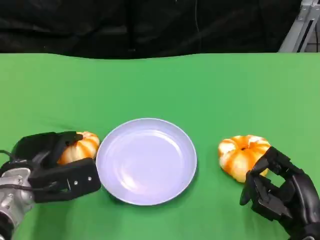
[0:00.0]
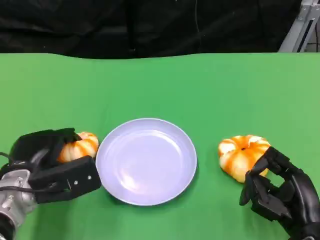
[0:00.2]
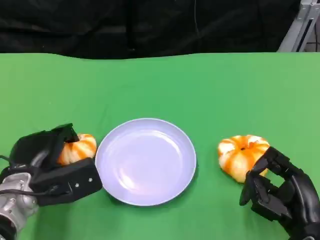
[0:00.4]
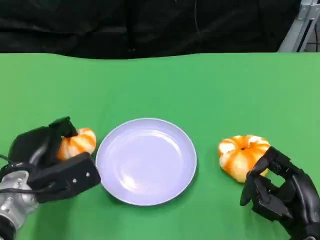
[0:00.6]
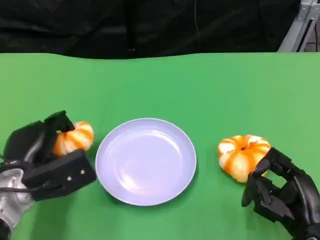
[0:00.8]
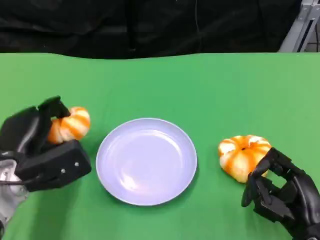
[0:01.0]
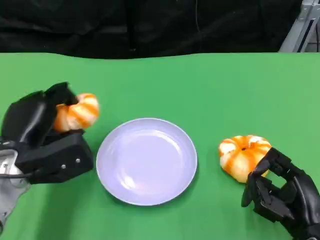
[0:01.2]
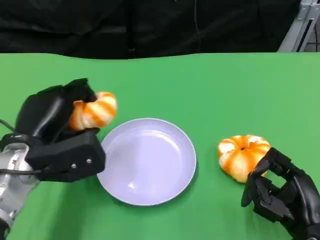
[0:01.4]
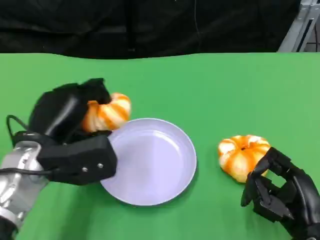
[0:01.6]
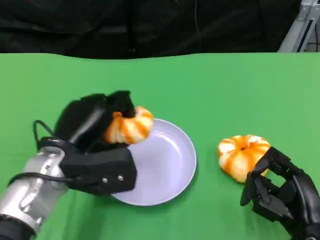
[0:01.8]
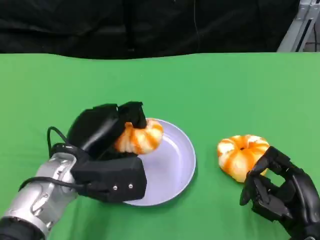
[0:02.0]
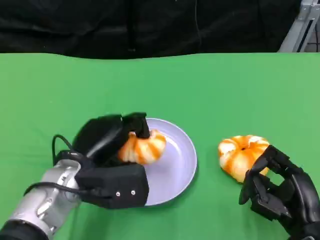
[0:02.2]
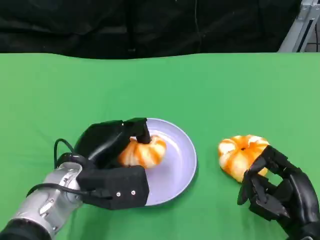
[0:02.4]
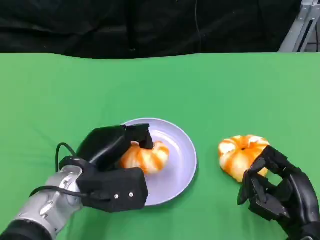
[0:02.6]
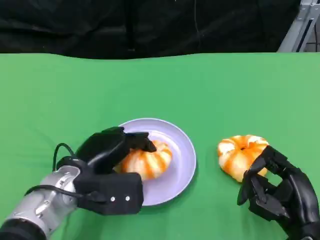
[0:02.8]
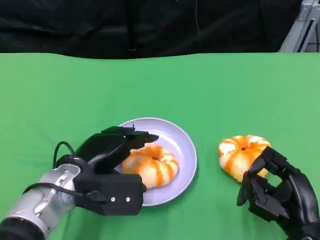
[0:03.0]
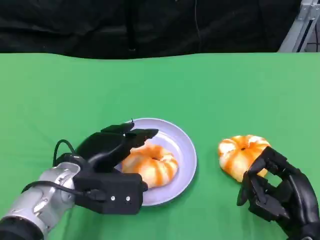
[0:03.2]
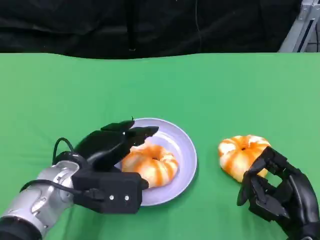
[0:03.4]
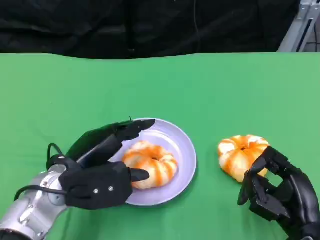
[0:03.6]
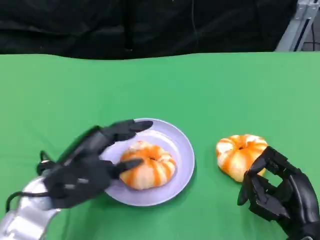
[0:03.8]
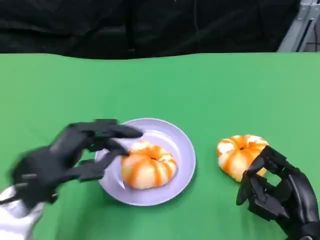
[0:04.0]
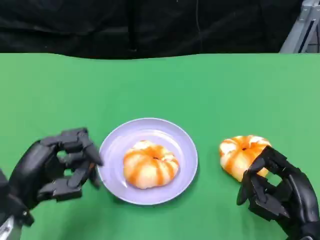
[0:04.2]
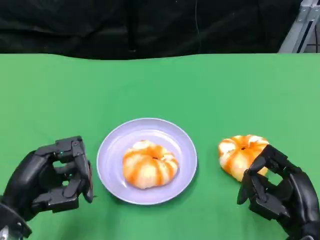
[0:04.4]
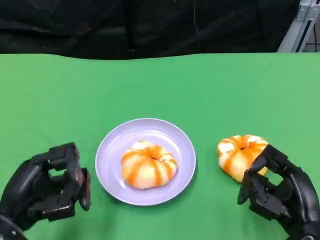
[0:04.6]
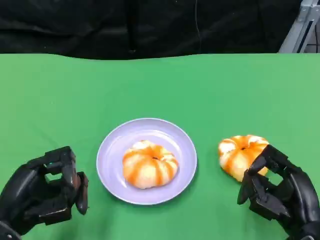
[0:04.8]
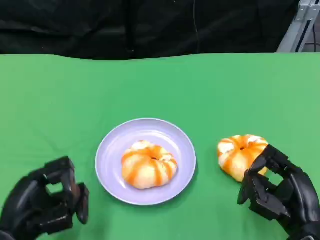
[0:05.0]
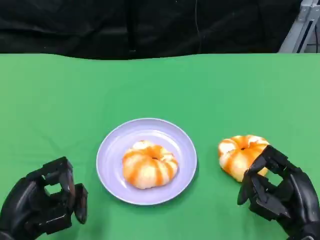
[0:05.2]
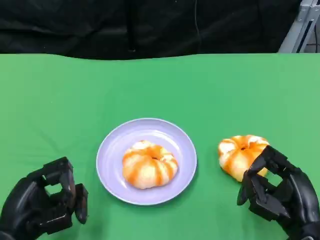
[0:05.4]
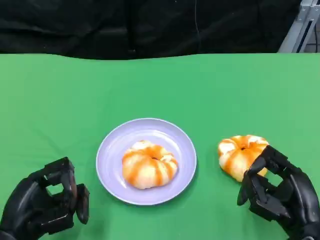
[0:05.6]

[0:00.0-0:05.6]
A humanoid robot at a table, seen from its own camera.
Task of the whole recording: Grasp the bread from the table and place it into the plate.
0:00.0 to 0:01.4: The left hand goes approximately 5 cm upward.
0:01.4 to 0:02.8: The left hand heads to the right, covering roughly 5 cm.
0:02.8 to 0:04.2: The left hand shifts about 10 cm to the left and backward.
0:04.2 to 0:05.6: The left hand moves about 5 cm.

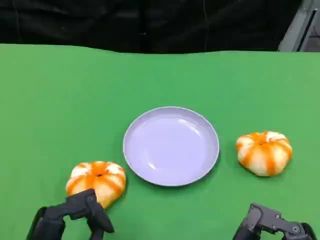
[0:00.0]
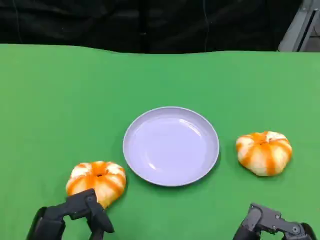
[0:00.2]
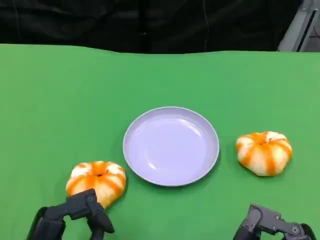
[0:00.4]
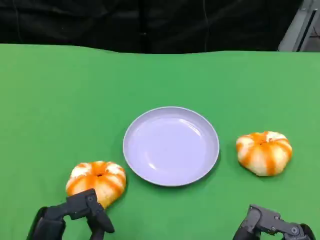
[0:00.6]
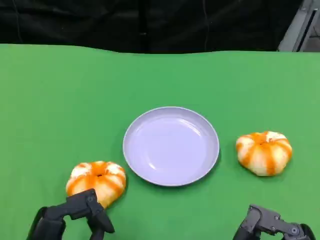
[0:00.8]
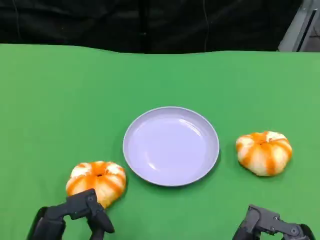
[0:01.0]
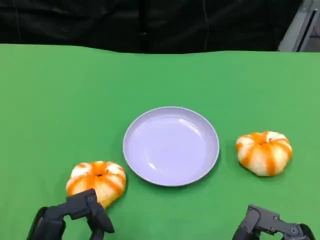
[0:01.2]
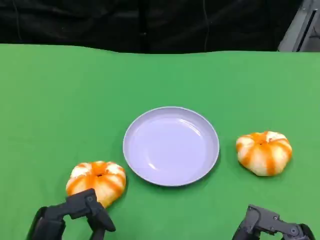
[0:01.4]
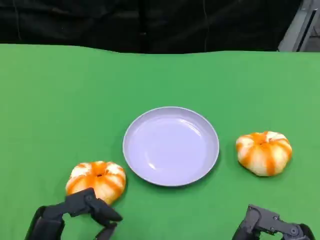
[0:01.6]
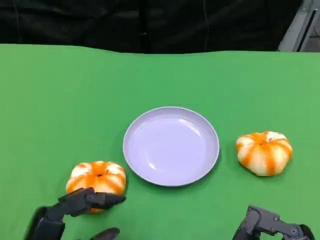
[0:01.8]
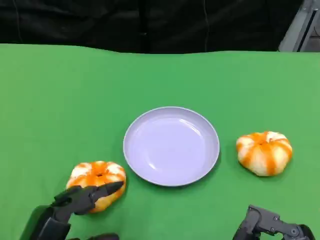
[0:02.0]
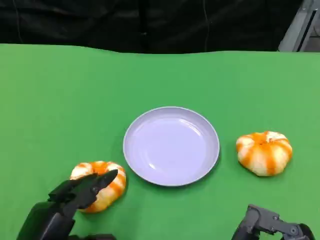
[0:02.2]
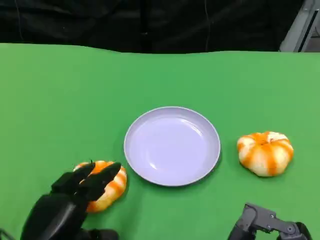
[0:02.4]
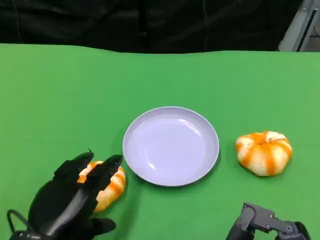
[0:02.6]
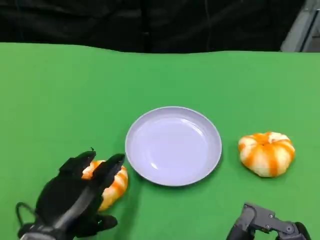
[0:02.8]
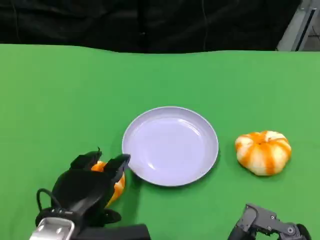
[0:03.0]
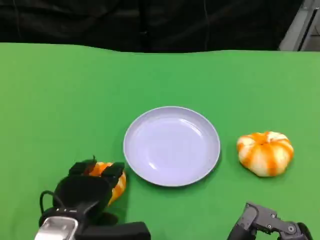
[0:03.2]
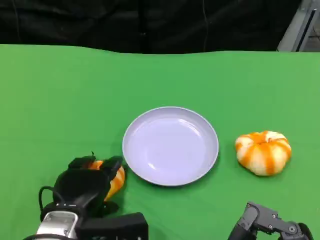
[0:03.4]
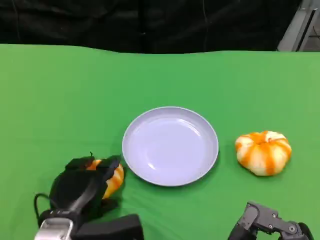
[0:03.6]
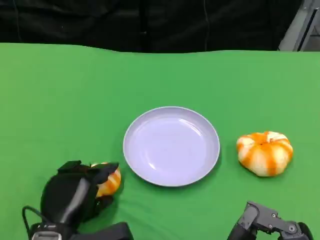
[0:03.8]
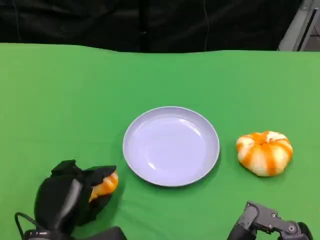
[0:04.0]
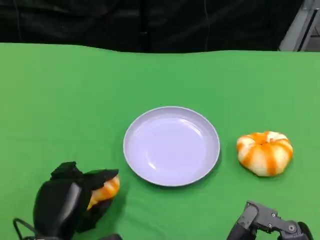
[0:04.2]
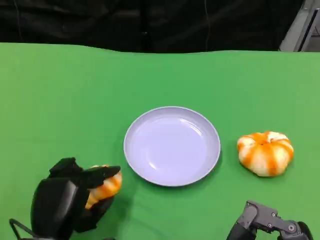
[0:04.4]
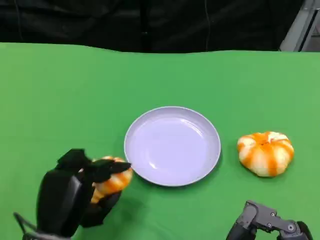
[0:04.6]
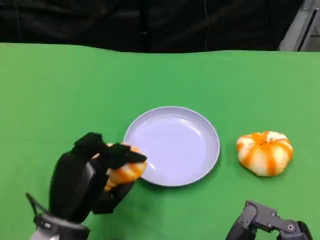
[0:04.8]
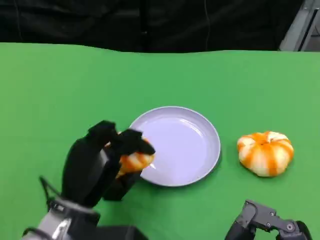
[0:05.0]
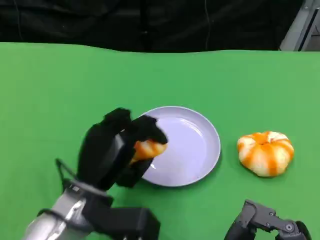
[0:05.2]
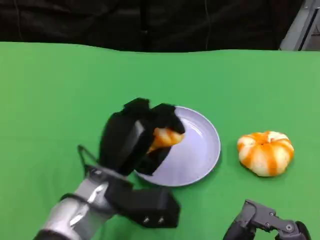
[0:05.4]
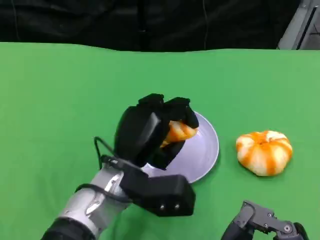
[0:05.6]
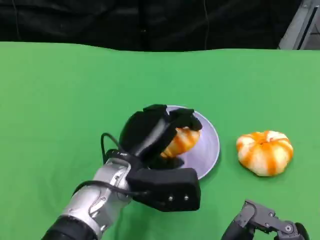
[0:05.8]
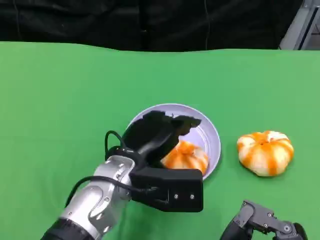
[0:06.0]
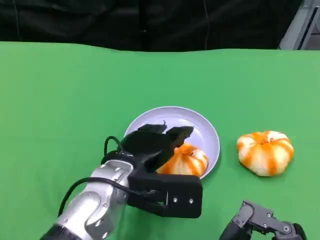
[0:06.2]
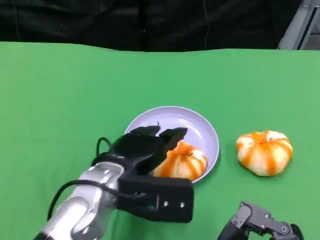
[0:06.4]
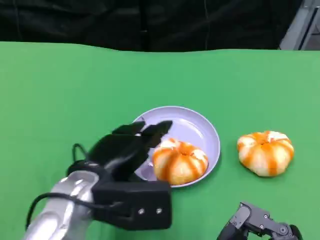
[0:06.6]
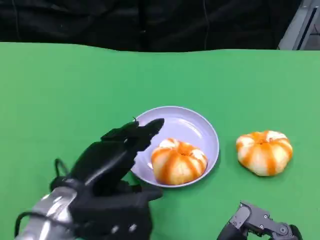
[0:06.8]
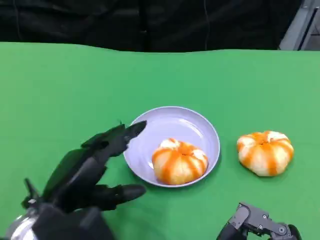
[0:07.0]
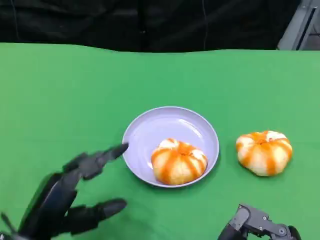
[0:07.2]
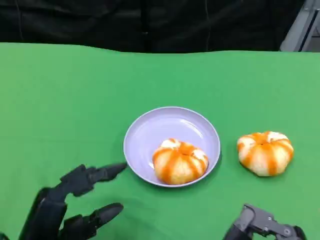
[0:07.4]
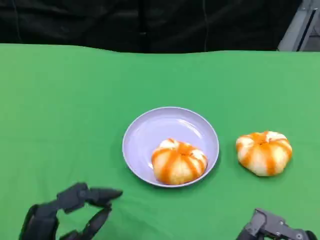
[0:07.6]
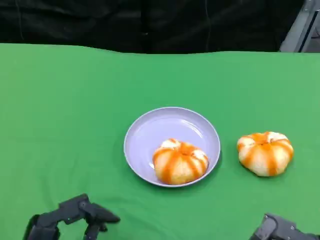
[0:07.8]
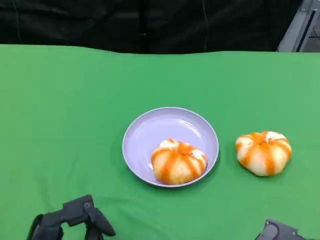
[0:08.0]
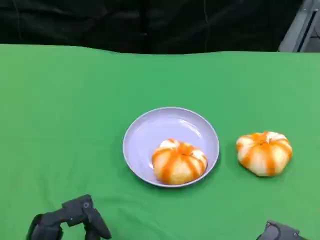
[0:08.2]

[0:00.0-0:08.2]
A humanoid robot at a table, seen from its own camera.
Task of the whole recording: Grasp the bread from the table and place it into the plate.
0:00.0 to 0:01.6: Both hands stay put.
0:01.6 to 0:03.2: The left hand travels forward by approximately 10 cm.
0:05.0 to 0:06.6: The left hand is displaced upward by about 5 cm.
0:06.6 to 0:08.2: The left hand goes some 15 cm backward, downward and to the left.
